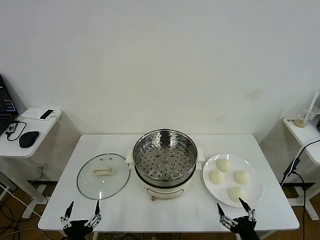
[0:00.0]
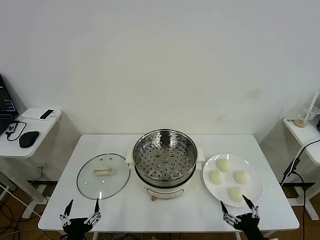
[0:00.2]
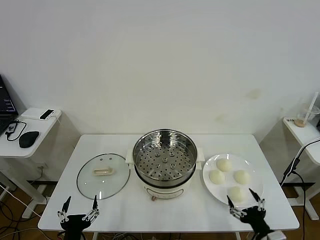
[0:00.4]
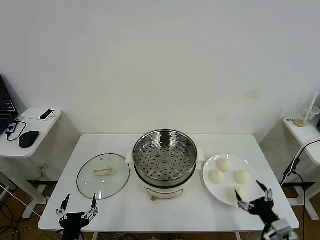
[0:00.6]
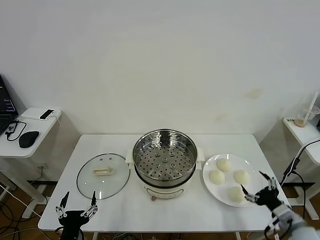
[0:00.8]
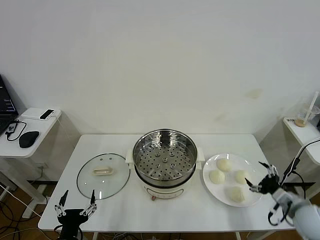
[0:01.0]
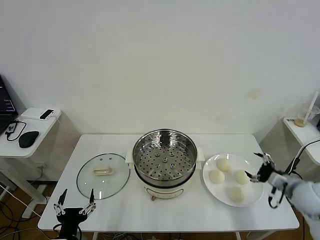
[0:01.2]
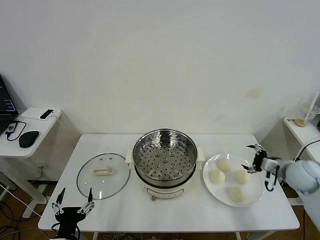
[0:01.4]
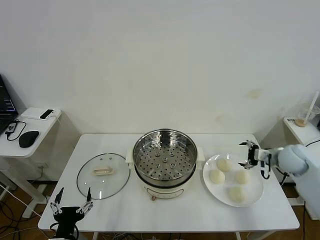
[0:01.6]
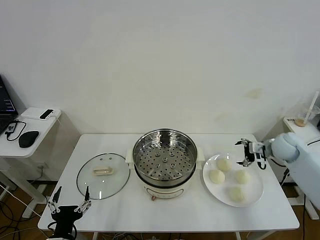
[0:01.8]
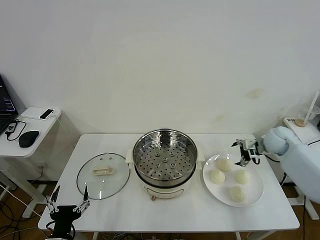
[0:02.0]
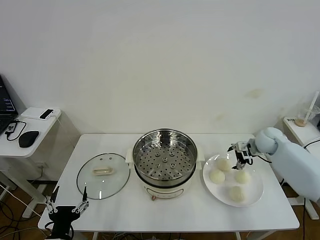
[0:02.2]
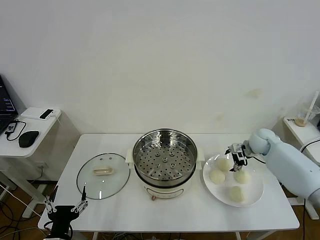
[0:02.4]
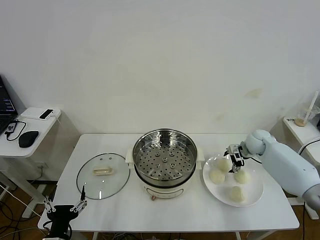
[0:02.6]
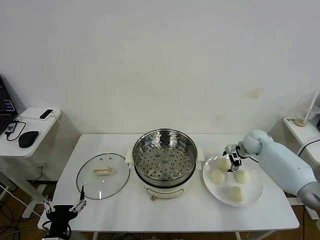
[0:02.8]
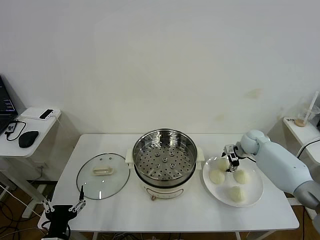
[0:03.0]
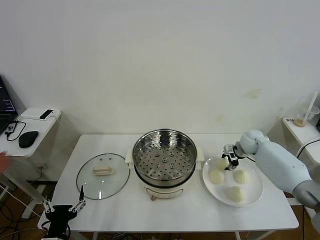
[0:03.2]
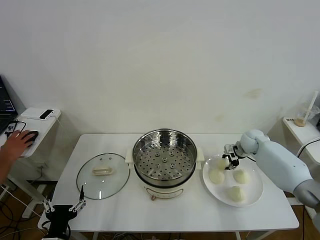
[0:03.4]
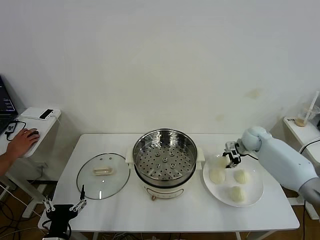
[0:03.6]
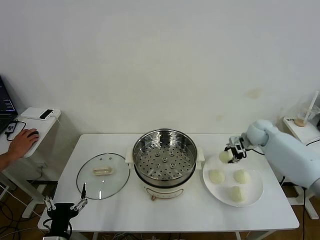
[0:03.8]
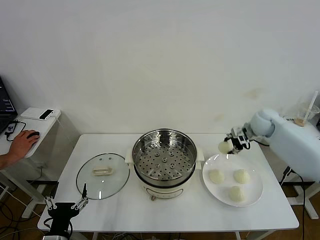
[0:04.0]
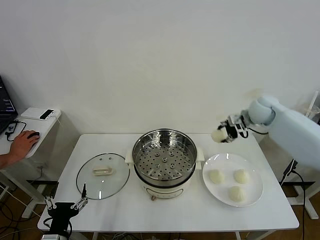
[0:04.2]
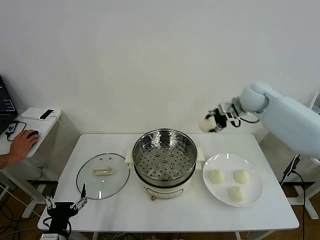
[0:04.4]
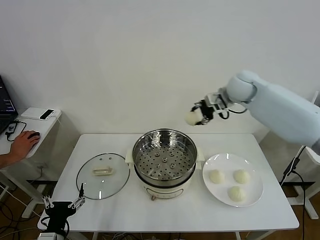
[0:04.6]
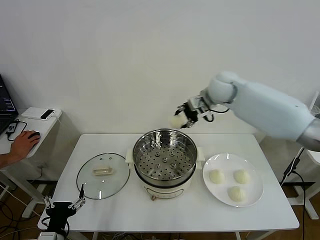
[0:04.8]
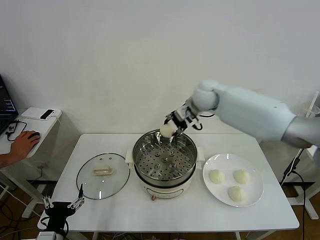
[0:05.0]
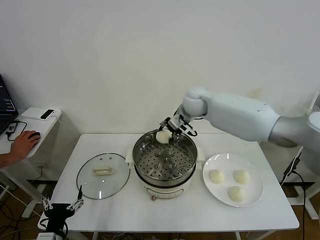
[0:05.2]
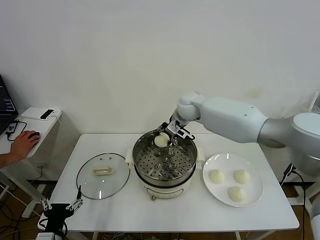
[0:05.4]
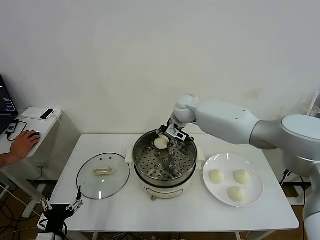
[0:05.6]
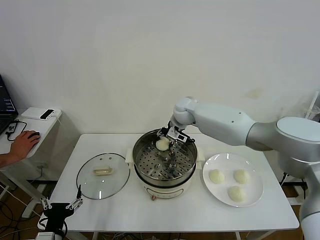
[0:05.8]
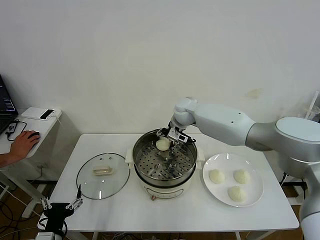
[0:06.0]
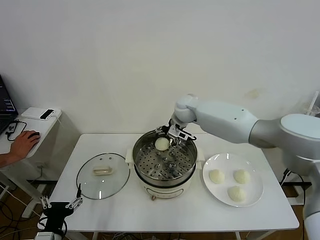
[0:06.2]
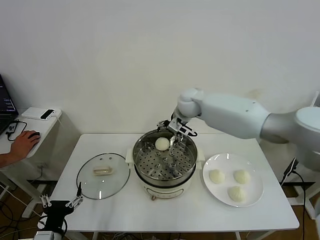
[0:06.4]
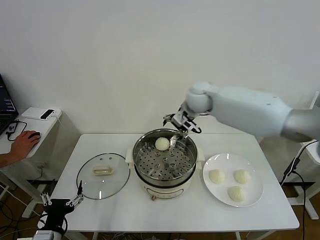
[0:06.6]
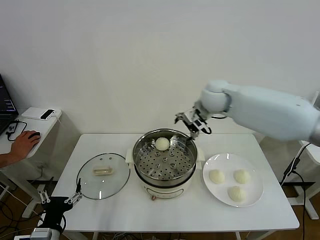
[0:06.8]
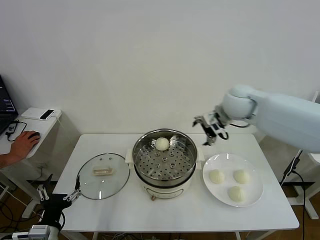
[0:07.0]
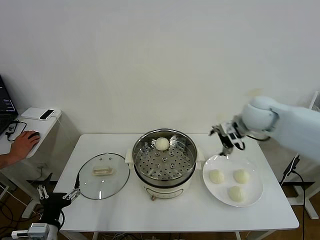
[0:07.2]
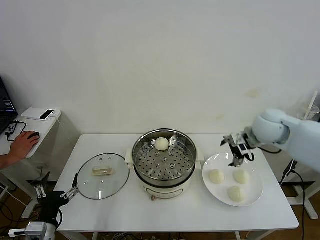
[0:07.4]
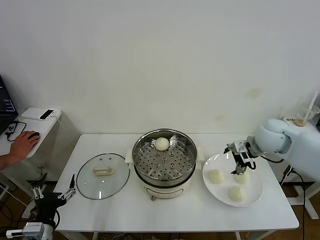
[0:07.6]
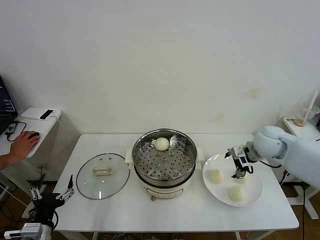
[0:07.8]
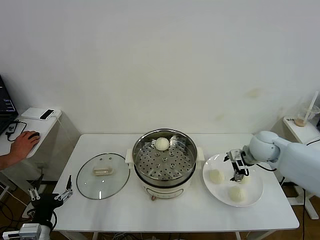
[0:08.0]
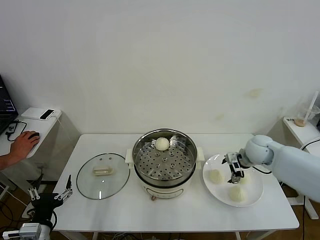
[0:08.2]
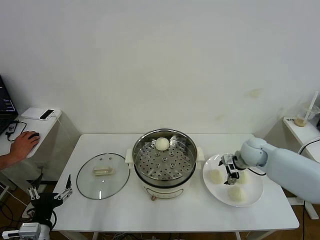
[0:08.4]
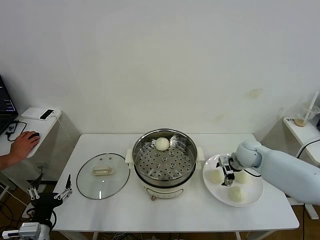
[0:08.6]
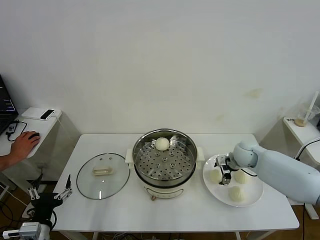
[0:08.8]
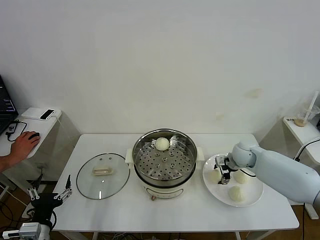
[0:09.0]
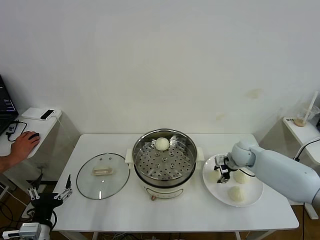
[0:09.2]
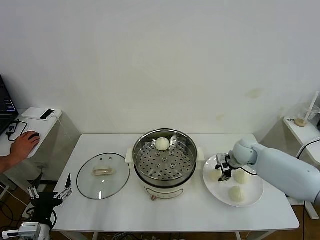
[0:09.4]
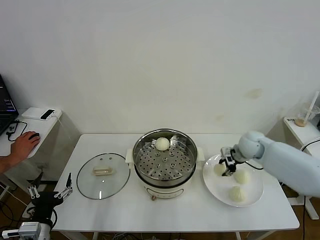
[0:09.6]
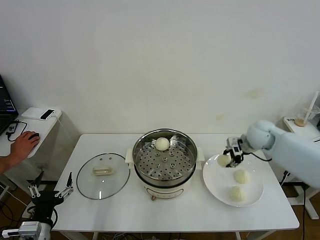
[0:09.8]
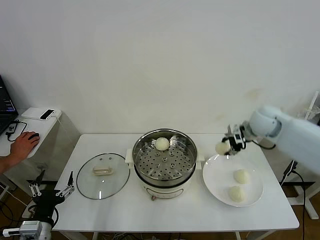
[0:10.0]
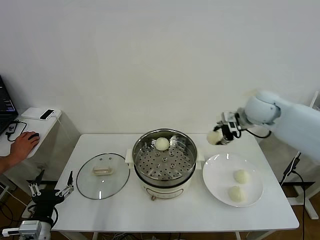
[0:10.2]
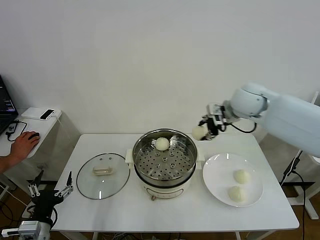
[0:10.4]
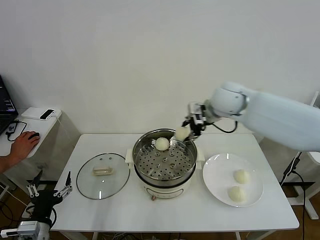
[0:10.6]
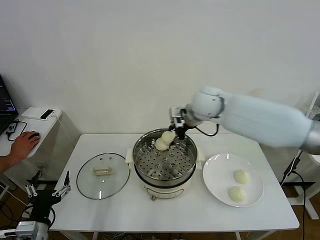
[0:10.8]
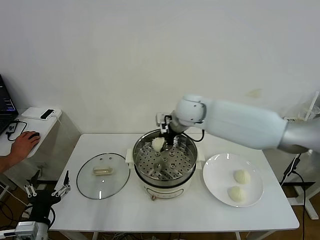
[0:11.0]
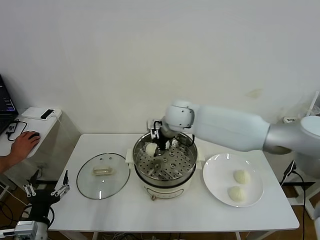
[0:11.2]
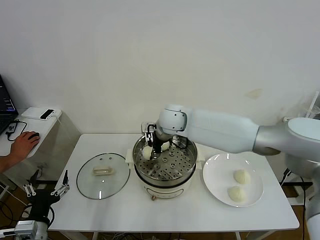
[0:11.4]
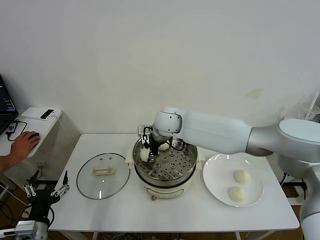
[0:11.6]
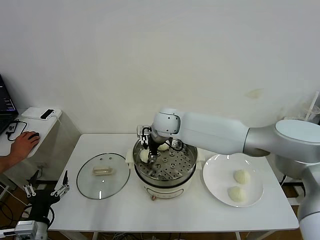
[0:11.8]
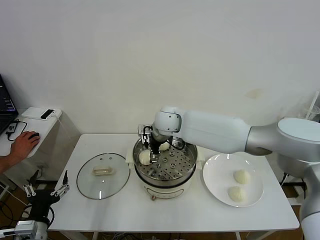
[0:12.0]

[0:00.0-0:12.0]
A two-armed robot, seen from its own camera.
Task of the whole recording: take steamed baozi put them in steamer then cover it.
Step, 0:00.0 to 0:03.2: Grasp the baozi in the plate with right gripper.
Step, 0:03.4 to 0:06.2: Place the baozi on the steamer with right gripper.
Step, 0:06.4 to 0:09.2: Grasp the baozi in the plate with right gripper.
0:01.6 to 0:03.0: The right gripper travels forward, downward and to the left by roughly 15 cm, and closes.
0:03.0 to 0:04.4: The right gripper heads upward and to the left, covering approximately 25 cm.
0:04.4 to 0:06.0: The right gripper shifts about 20 cm to the left and downward, and opens its fingers.
0:06.0 to 0:07.6: The right gripper moves to the right and backward, roughly 30 cm.
0:07.6 to 0:09.0: The right gripper goes some 15 cm downward, and closes up.
0:09.0 to 0:10.4: The right gripper shifts roughly 25 cm upward and to the left.
0:10.4 to 0:12.0: The right gripper travels to the left and downward by approximately 20 cm, and opens up.

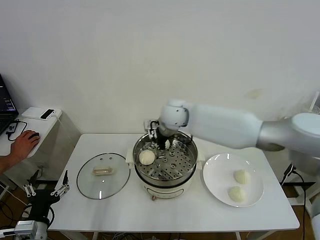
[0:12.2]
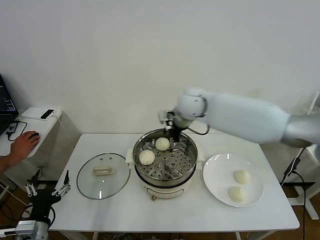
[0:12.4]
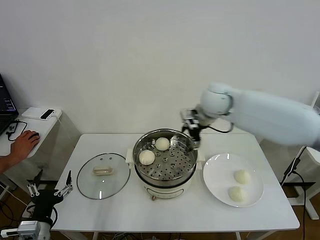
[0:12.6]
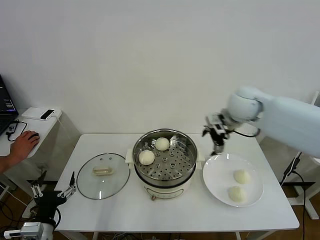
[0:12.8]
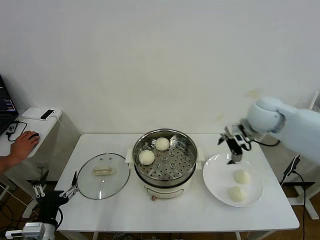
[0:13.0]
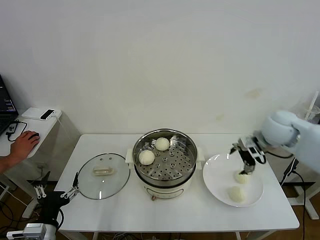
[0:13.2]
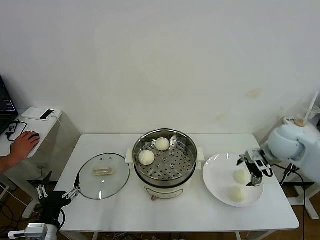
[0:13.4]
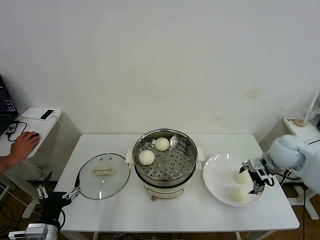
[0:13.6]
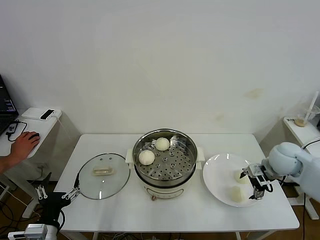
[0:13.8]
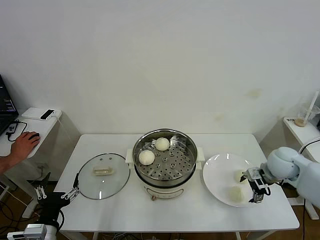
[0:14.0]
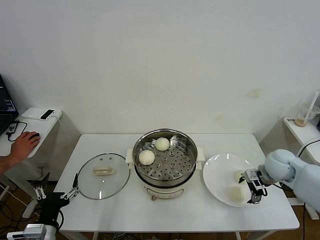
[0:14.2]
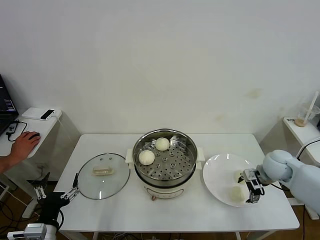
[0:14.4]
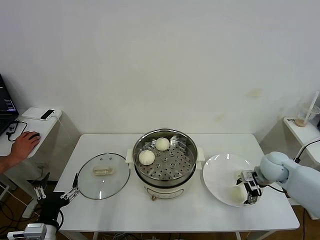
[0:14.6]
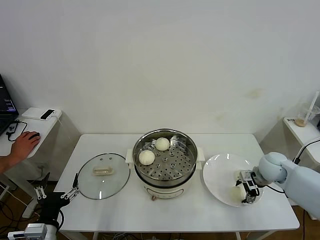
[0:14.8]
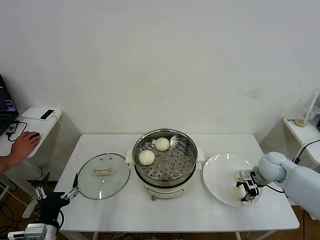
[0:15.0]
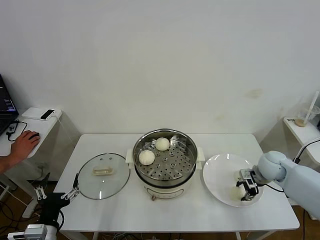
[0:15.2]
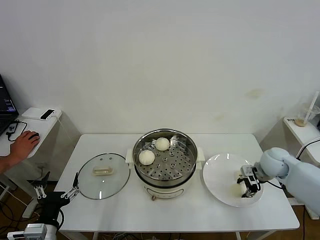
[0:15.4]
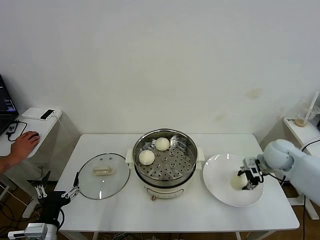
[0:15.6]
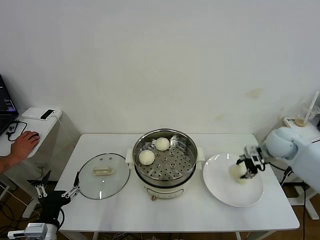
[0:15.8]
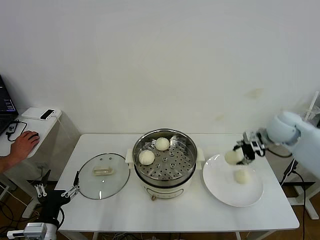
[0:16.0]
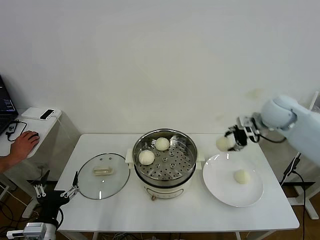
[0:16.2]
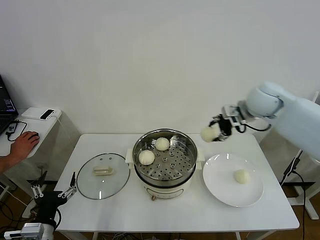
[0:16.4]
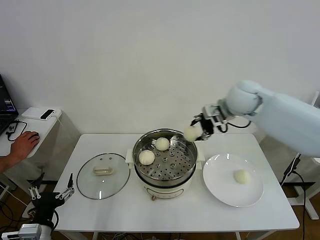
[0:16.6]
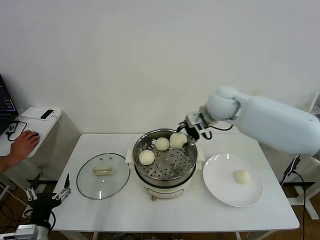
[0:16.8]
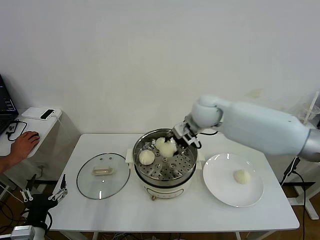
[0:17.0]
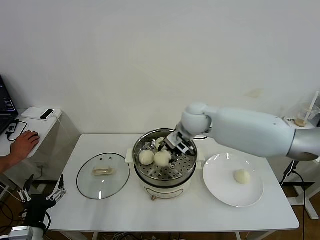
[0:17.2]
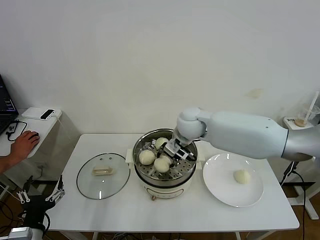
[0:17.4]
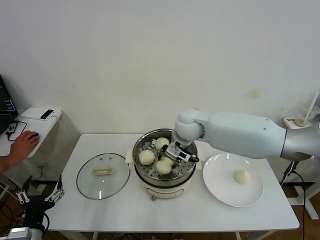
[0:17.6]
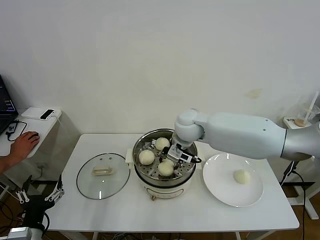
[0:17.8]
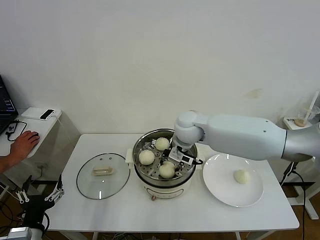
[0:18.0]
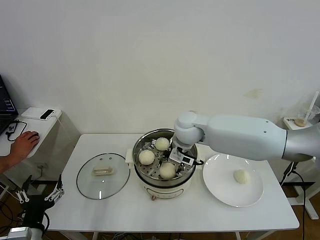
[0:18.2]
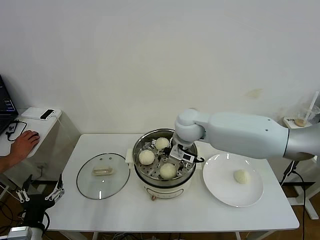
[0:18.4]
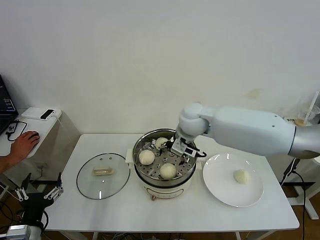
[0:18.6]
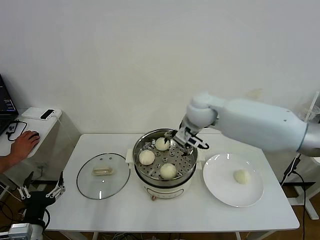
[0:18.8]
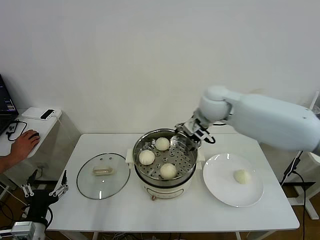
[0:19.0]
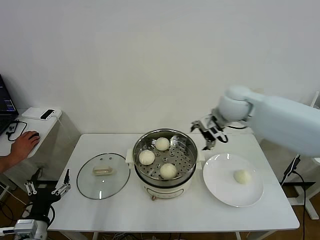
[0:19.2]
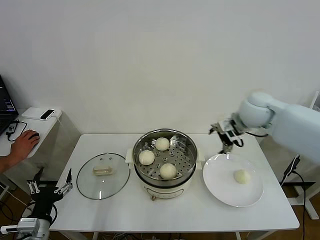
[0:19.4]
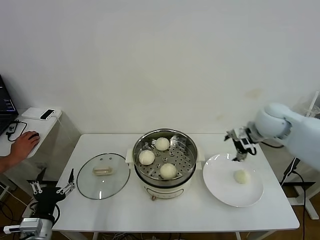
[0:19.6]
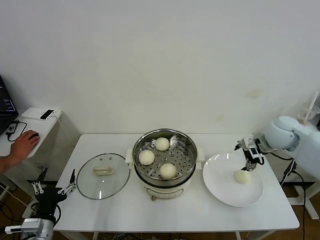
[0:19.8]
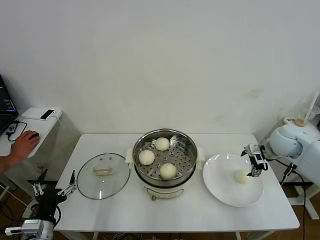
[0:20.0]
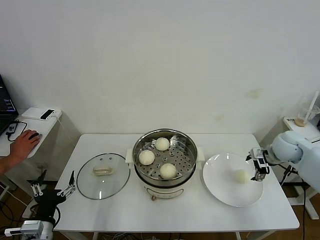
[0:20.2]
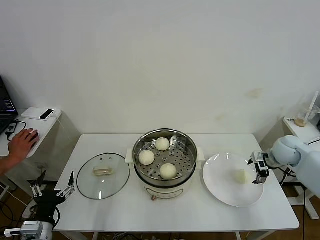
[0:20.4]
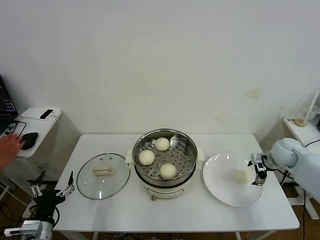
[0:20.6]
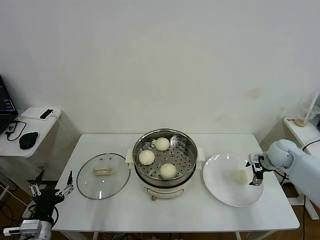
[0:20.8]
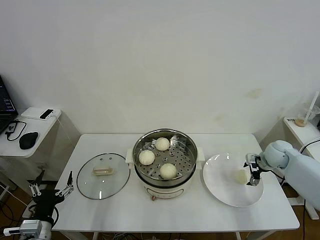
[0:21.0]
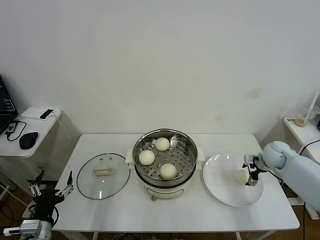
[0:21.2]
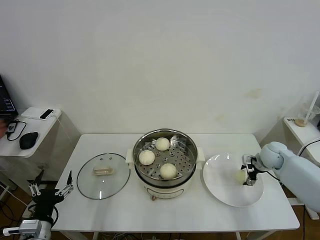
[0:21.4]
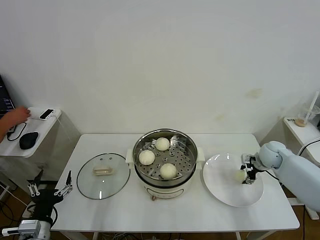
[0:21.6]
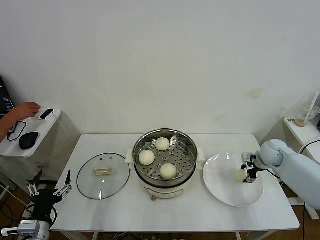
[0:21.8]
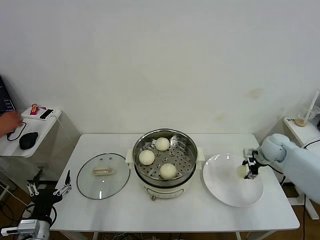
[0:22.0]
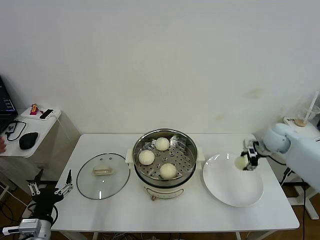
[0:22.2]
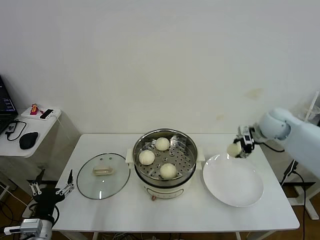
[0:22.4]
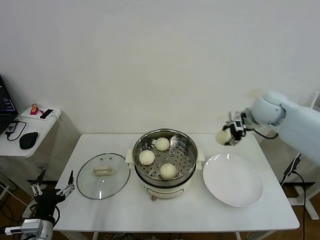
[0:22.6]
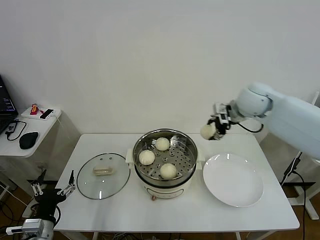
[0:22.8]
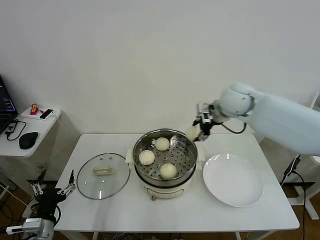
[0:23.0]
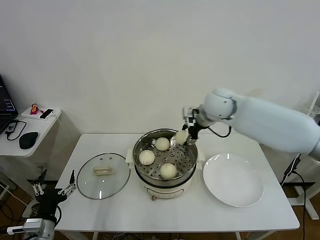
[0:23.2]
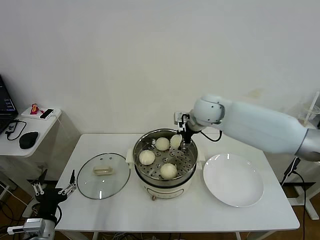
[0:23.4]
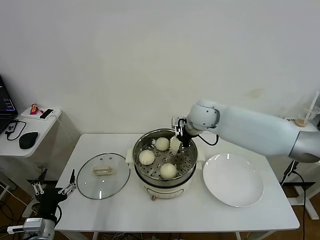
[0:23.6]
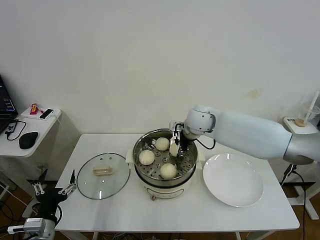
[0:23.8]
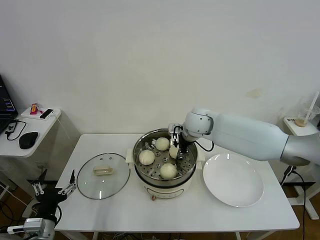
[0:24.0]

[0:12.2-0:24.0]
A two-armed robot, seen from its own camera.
Task of the whole recording: take steamed baozi put them in steamer then cover it.
Step, 0:12.2 to 0:15.0: Grasp the baozi in the plate with right gripper.
Step, 0:15.2 to 0:18.4: Place the baozi on the steamer with right gripper.
Step, 0:18.6 to 0:21.6: Grasp the baozi in the plate with right gripper.
0:12.2 to 0:13.6: The right gripper shifts approximately 30 cm to the right.
0:13.6 to 0:15.2: The right gripper shifts approximately 10 cm downward, and closes up.
0:15.2 to 0:16.6: The right gripper is displaced upward and to the left by approximately 30 cm.
0:16.6 to 0:18.2: The right gripper is displaced to the left and downward by roughly 15 cm, and opens up.
0:18.2 to 0:19.6: The right gripper travels to the right by approximately 25 cm, and opens.
0:19.6 to 0:21.0: The right gripper heads downward and to the right, covering about 20 cm.
0:21.0 to 0:22.6: The right gripper travels upward and to the left by some 25 cm, and closes up.
0:22.6 to 0:24.0: The right gripper travels to the left by approximately 20 cm.
